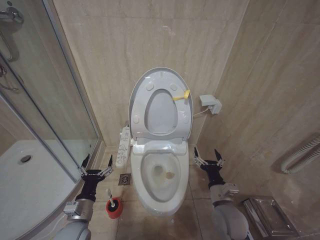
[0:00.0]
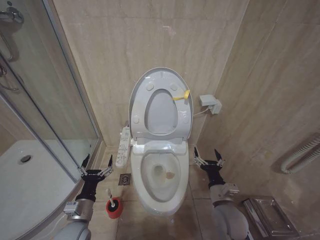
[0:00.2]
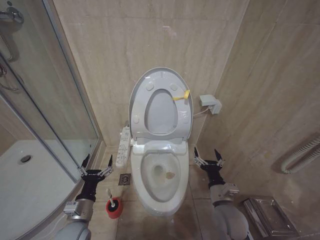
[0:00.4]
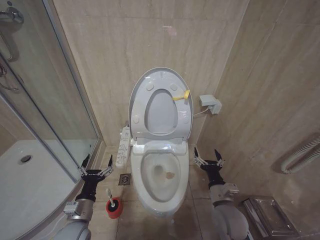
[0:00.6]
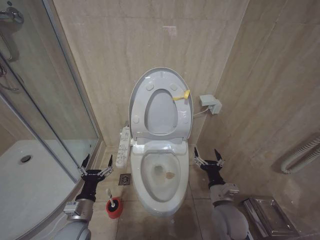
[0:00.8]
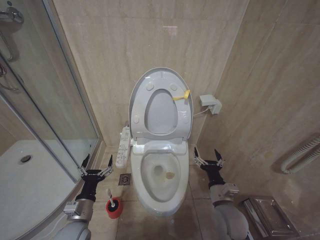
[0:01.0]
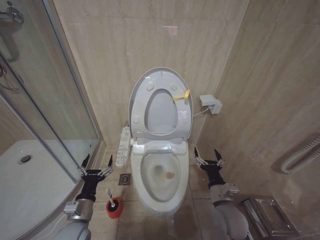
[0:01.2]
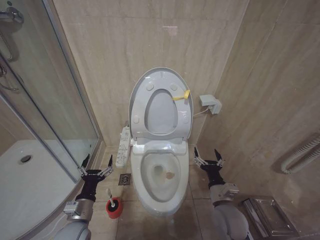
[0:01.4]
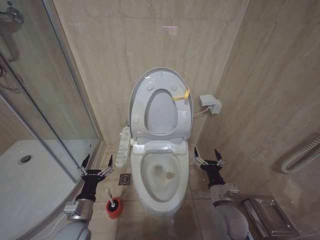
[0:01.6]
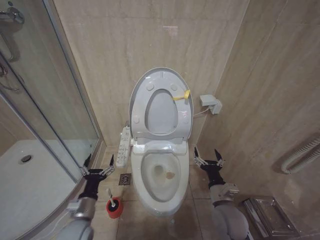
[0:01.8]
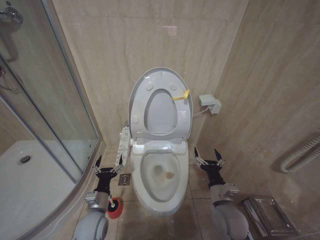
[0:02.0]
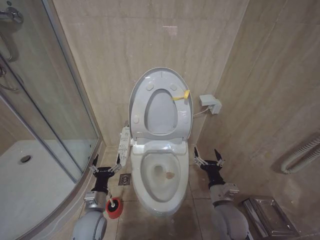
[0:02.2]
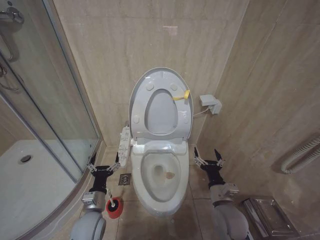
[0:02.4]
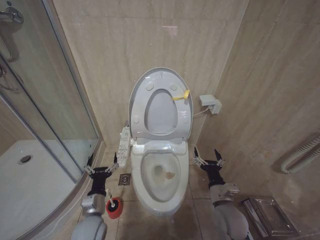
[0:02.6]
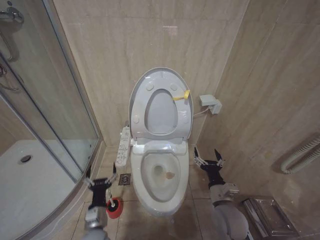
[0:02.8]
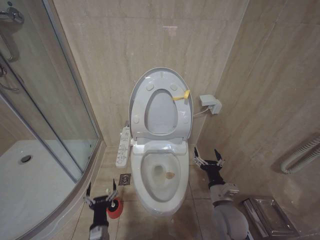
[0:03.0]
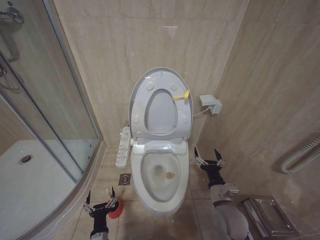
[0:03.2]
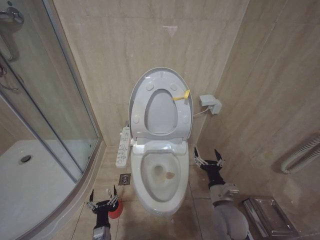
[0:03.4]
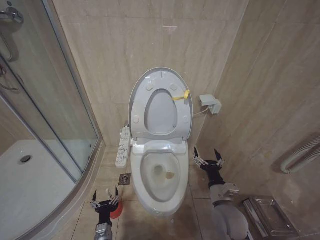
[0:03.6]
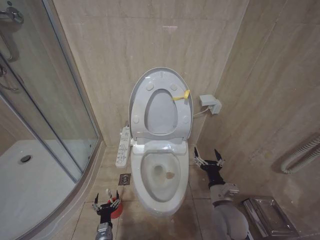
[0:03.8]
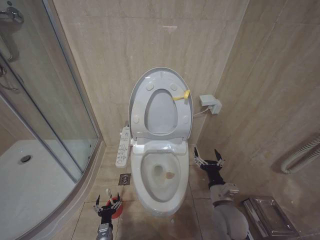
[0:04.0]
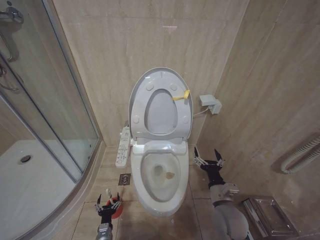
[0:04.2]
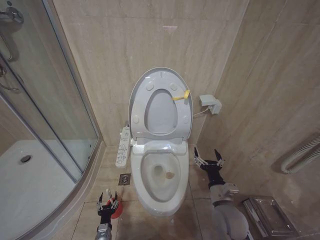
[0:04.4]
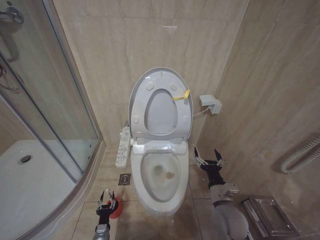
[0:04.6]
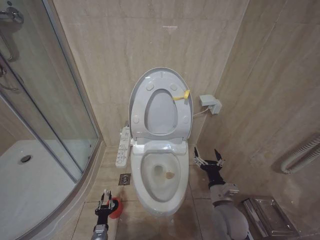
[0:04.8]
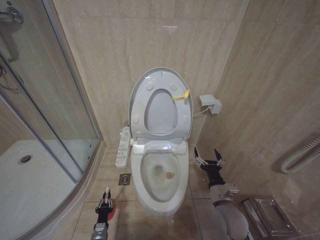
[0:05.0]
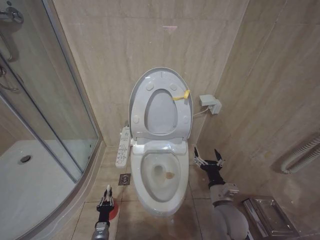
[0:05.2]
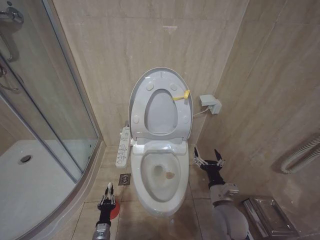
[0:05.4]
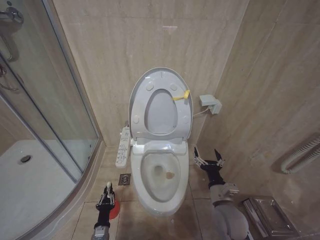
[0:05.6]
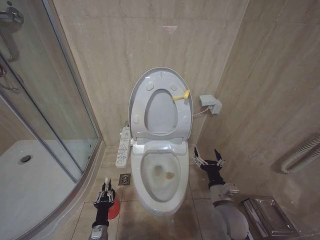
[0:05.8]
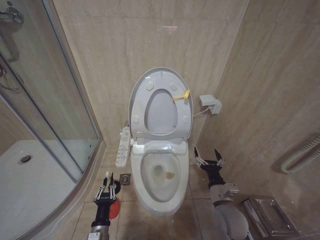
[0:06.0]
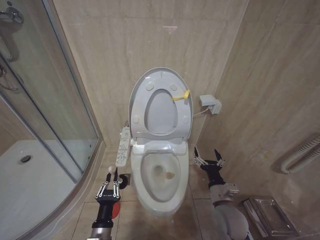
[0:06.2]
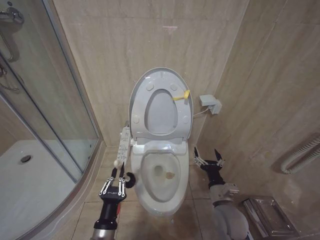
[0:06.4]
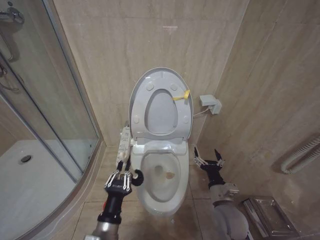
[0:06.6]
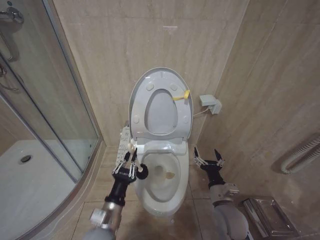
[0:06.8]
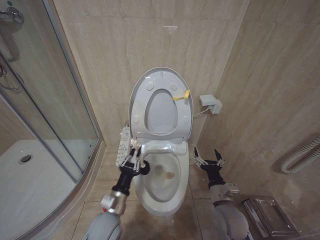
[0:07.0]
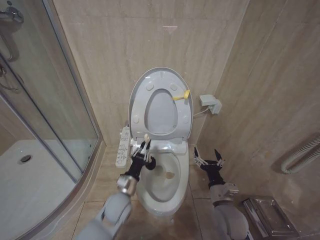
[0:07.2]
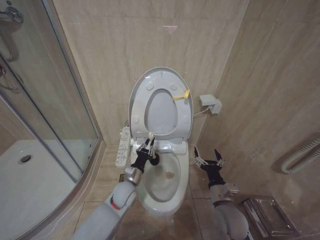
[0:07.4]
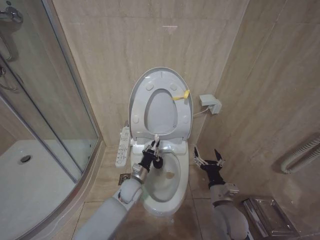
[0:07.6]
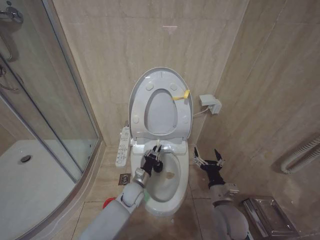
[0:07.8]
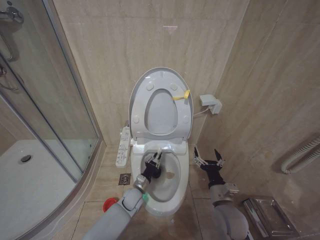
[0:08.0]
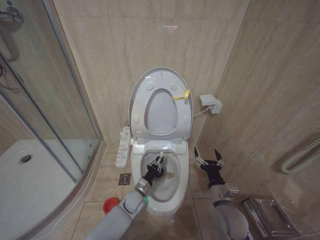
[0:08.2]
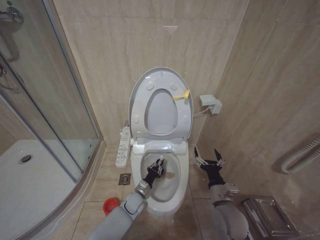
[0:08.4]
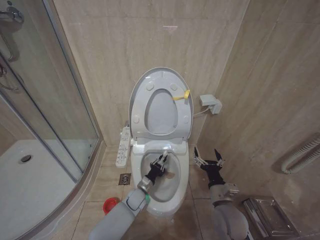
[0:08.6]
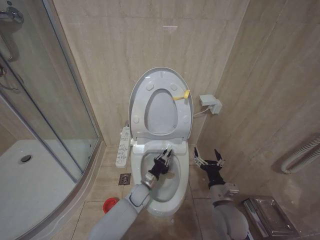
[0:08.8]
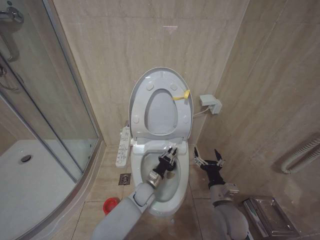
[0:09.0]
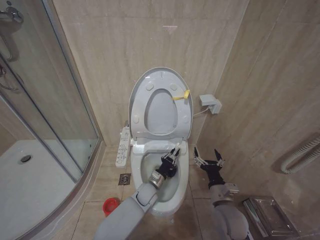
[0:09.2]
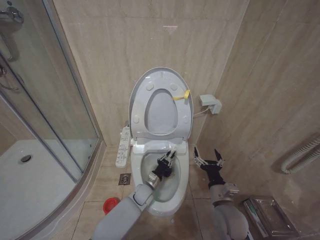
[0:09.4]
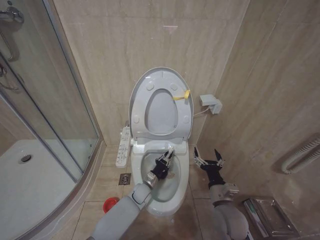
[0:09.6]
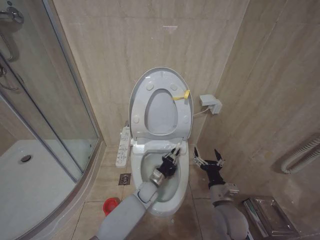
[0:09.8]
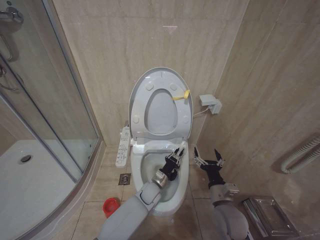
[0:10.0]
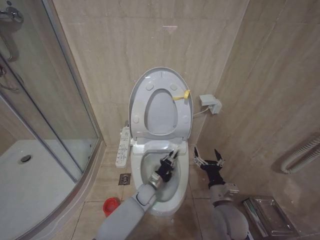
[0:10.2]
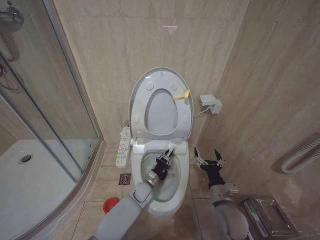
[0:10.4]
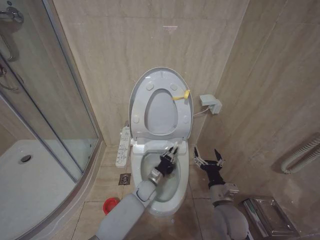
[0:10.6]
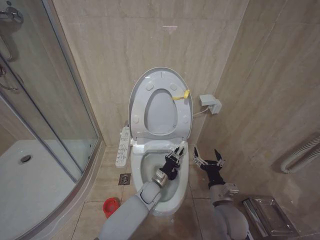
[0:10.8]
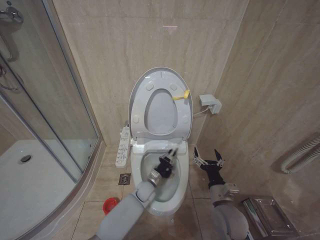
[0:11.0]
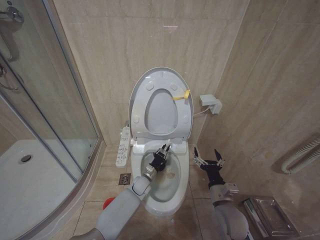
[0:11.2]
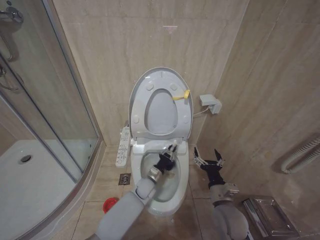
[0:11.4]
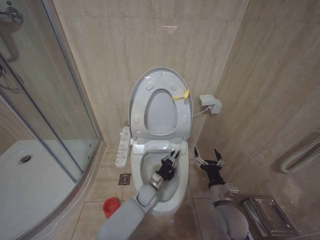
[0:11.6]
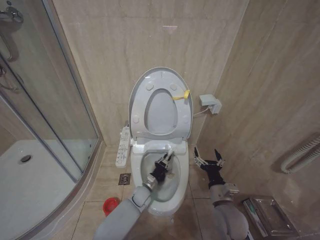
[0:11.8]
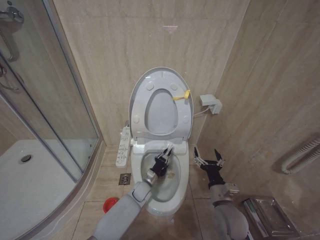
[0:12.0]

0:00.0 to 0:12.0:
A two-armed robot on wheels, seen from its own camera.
Task of the whole recording: Open the toilet lid, clean the toilet bowl with a toilet brush, close the toilet lid, and flush.
0:00.0 to 0:01.6: Both grippers stay put.
0:01.6 to 0:03.0: The left gripper travels downward and to the right by some 10 cm.
0:03.0 to 0:04.4: The left gripper shifts some 15 cm downward.
0:04.4 to 0:06.0: The left gripper travels upward by some 10 cm, and closes.
0:06.0 to 0:07.6: The left gripper shifts roughly 25 cm forward, upward and to the right.
0:07.6 to 0:09.0: The left gripper goes approximately 10 cm downward and to the right.

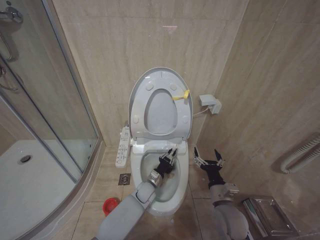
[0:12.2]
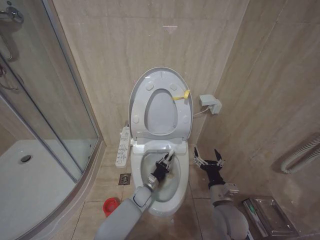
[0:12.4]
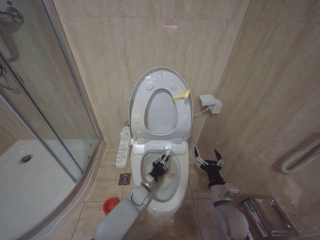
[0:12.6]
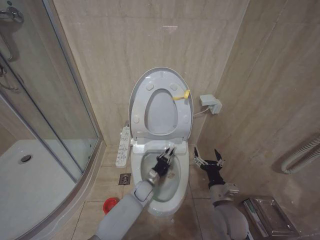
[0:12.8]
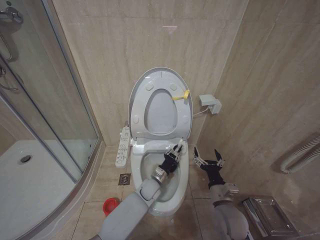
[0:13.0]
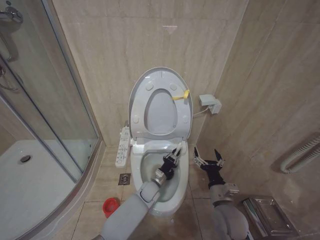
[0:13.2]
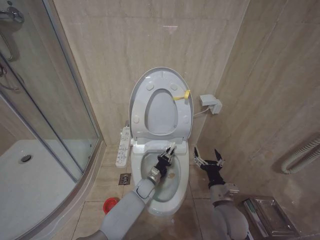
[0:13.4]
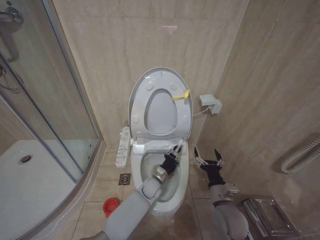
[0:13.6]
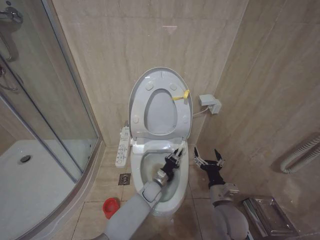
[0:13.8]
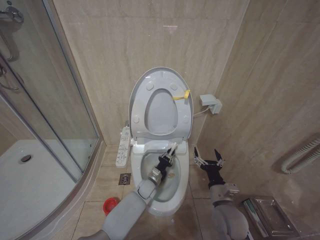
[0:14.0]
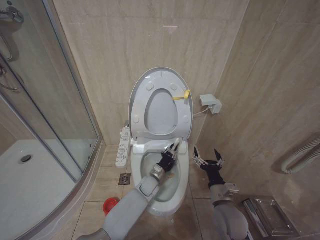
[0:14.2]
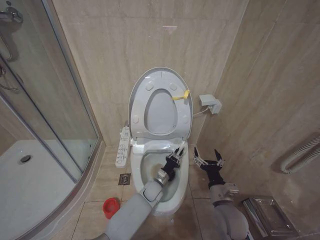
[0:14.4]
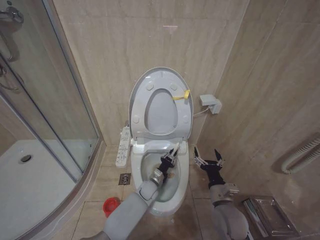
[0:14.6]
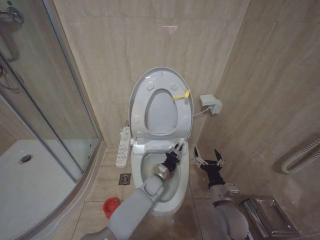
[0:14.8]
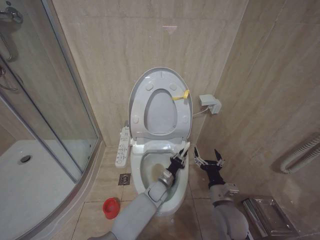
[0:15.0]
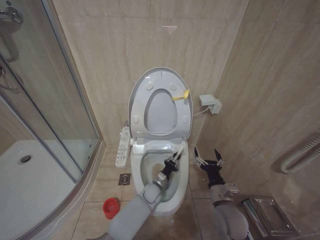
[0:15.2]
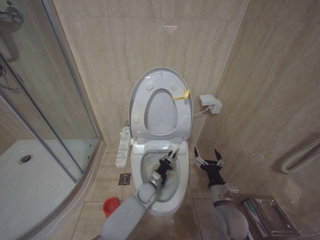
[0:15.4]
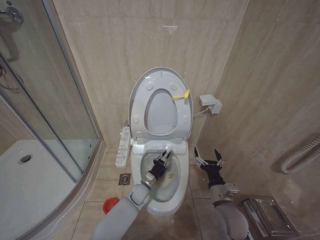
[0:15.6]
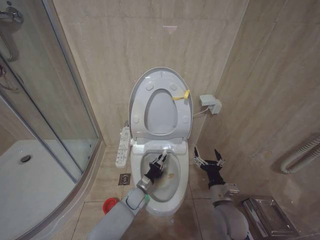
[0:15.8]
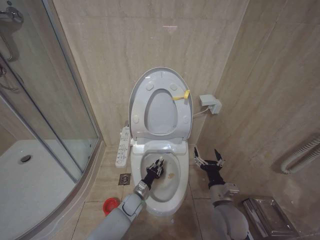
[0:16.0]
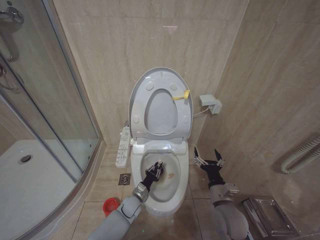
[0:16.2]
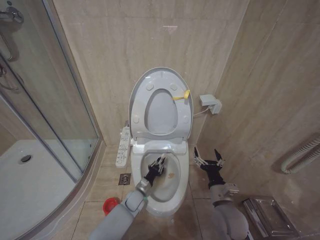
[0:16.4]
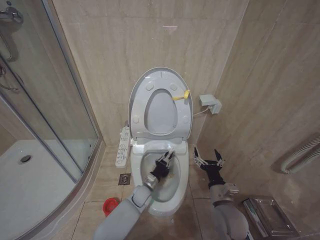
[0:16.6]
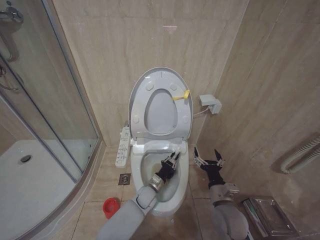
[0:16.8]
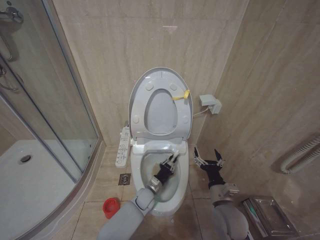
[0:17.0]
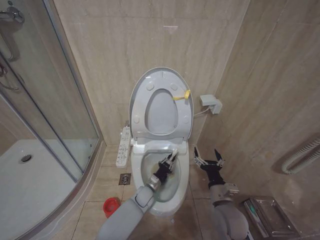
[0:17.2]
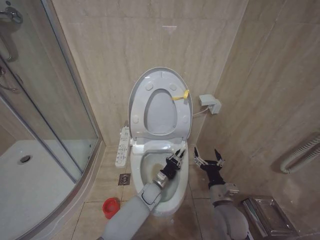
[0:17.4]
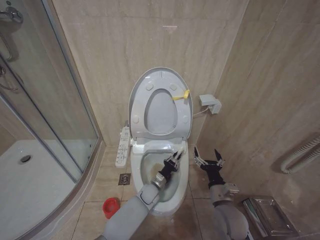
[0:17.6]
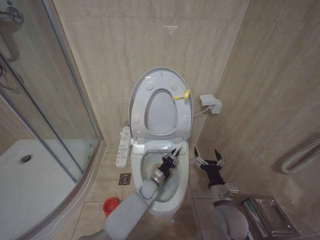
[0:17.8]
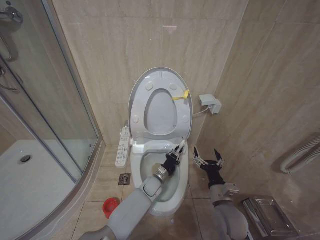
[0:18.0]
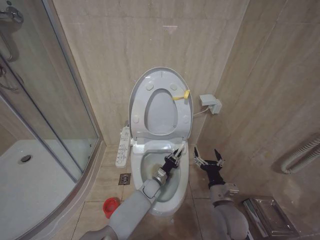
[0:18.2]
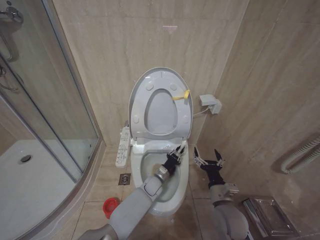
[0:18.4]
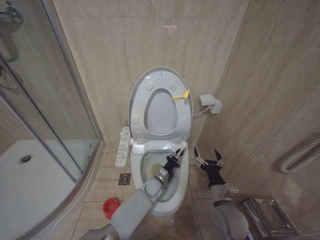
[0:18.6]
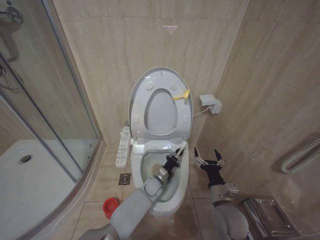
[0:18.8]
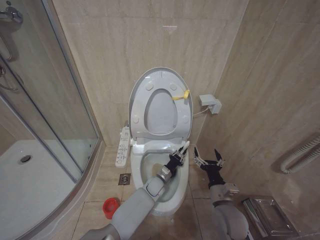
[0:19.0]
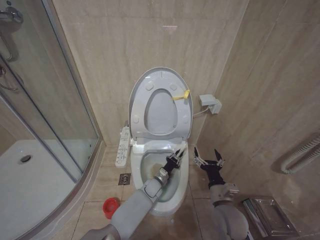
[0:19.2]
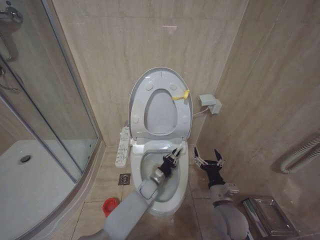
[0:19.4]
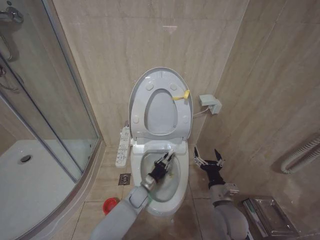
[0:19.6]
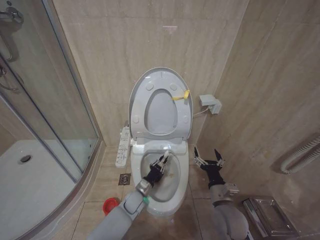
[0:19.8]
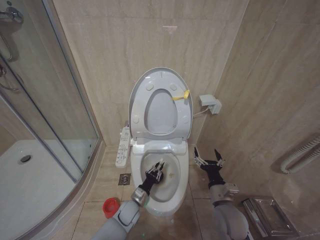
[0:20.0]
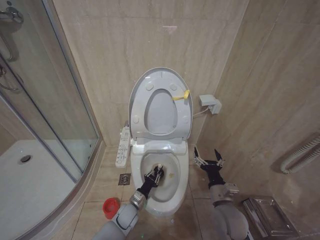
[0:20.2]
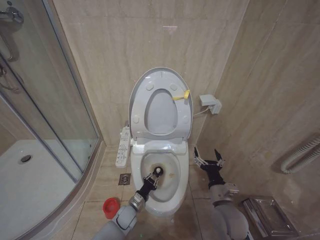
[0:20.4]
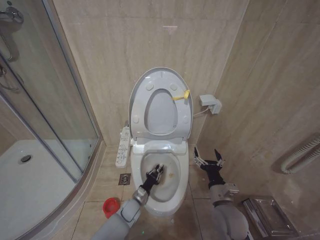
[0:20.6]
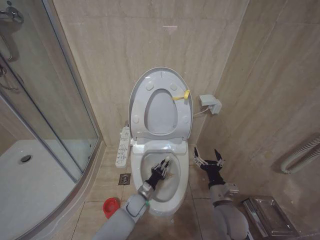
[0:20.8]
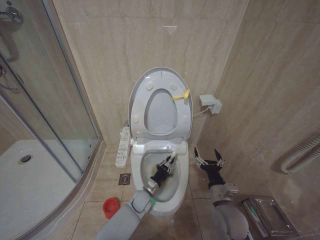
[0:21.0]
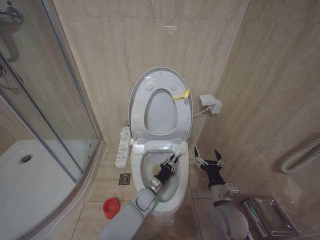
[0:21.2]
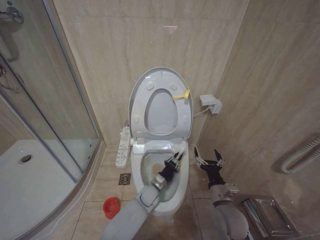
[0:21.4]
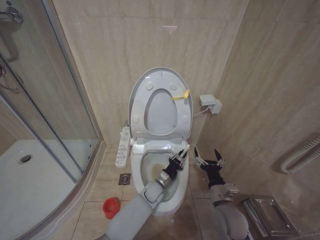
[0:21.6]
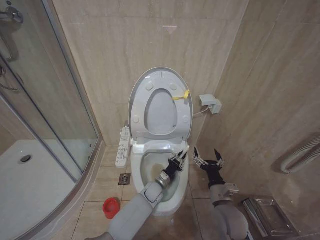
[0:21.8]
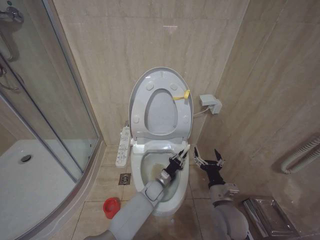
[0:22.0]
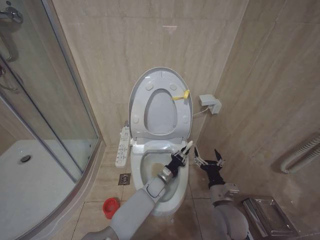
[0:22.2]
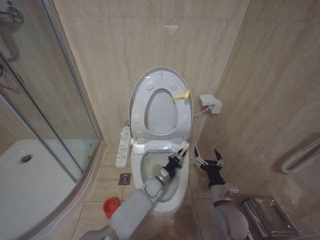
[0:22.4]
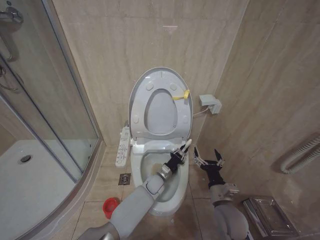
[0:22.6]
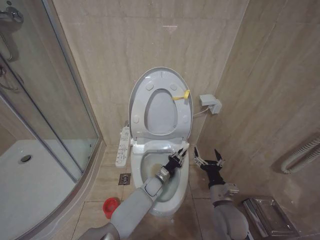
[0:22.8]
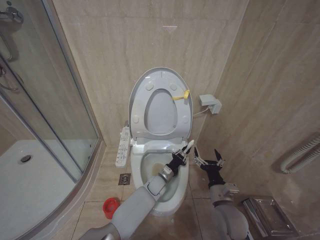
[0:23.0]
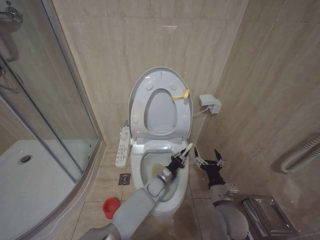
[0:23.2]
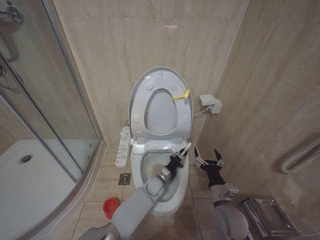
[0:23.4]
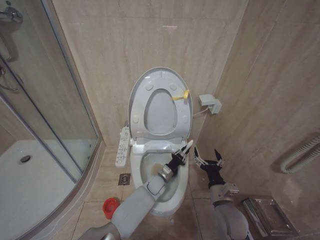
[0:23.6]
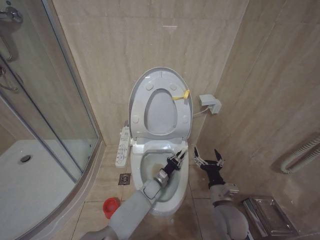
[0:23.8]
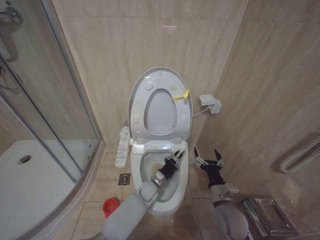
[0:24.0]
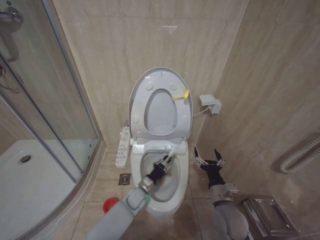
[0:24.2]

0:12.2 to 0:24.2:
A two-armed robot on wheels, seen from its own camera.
Task of the whole recording: Open the toilet lid, clean the toilet bowl with a toilet brush, close the toilet lid, and flush.
0:12.2 to 0:13.8: The grippers stay close to where they were, moving slightly.
0:15.2 to 0:16.6: The left gripper moves to the left, about 5 cm.
0:16.6 to 0:18.2: The left gripper is displaced to the right by some 5 cm.
0:18.2 to 0:19.8: The left gripper moves to the left, some 10 cm.
0:21.2 to 0:22.6: The left gripper moves forward and to the right, approximately 5 cm.
0:22.6 to 0:24.2: The left gripper goes approximately 5 cm to the left.
